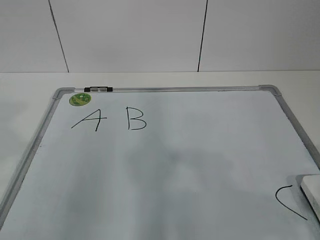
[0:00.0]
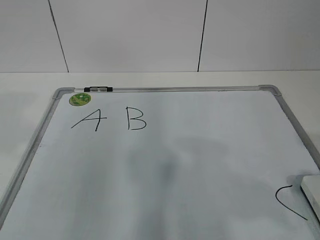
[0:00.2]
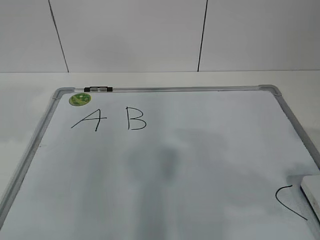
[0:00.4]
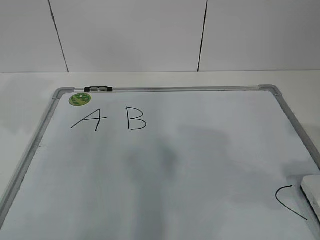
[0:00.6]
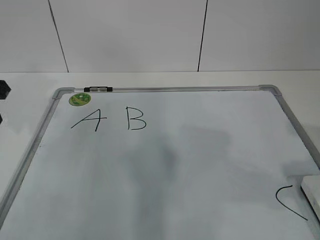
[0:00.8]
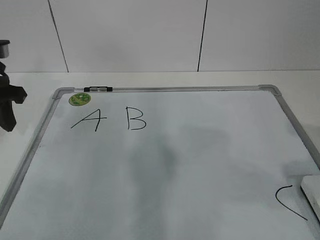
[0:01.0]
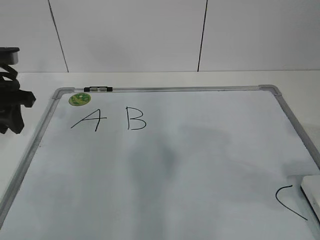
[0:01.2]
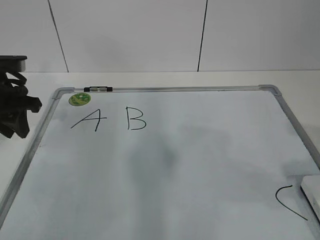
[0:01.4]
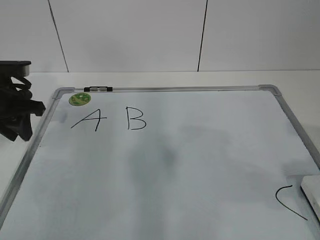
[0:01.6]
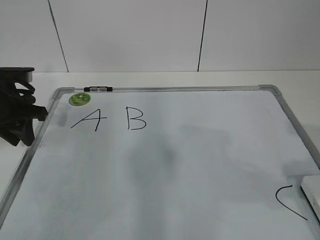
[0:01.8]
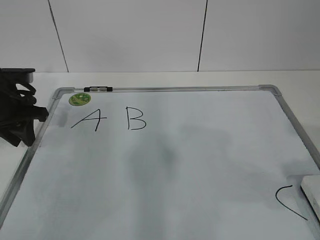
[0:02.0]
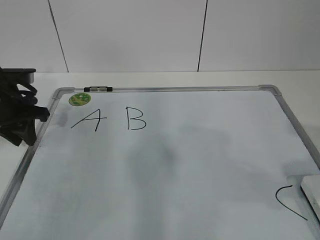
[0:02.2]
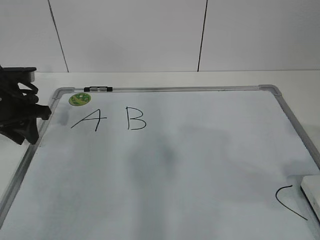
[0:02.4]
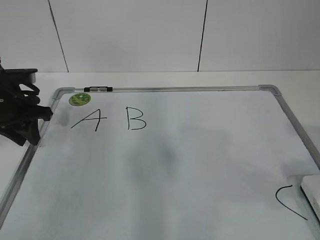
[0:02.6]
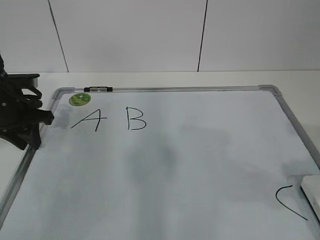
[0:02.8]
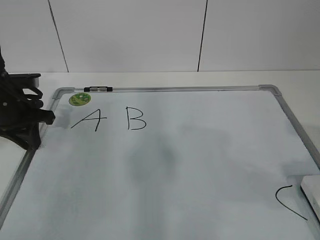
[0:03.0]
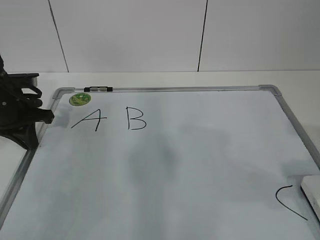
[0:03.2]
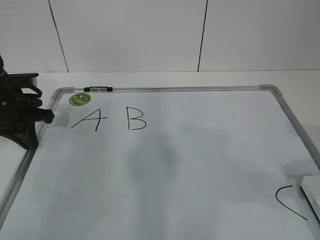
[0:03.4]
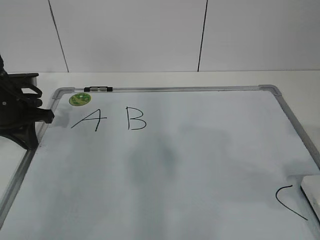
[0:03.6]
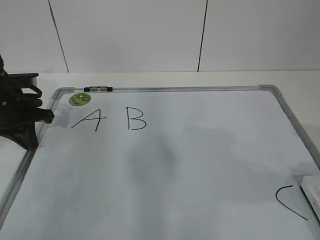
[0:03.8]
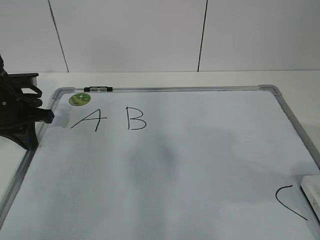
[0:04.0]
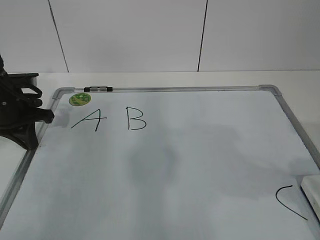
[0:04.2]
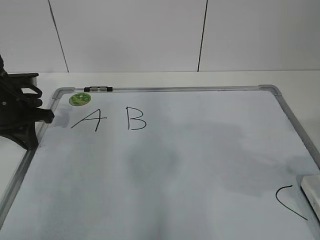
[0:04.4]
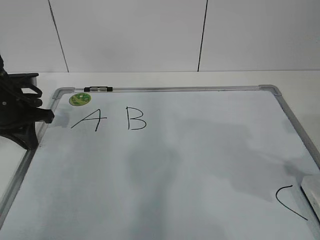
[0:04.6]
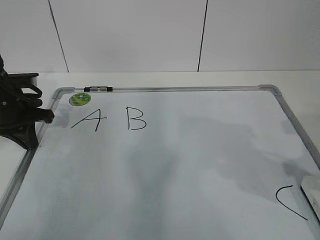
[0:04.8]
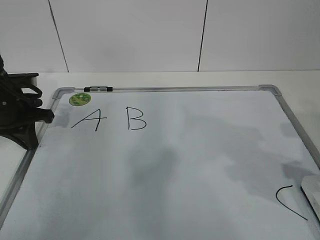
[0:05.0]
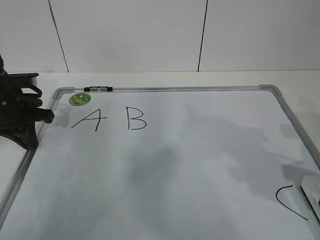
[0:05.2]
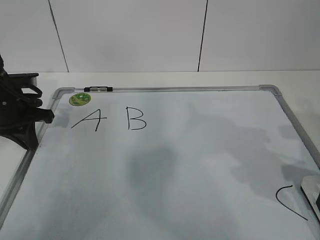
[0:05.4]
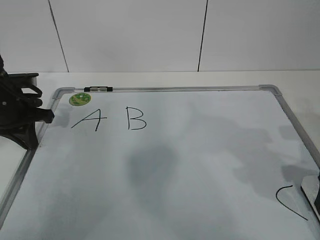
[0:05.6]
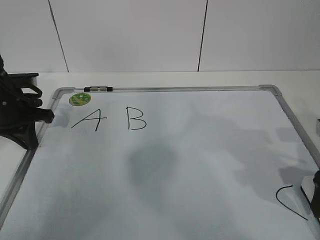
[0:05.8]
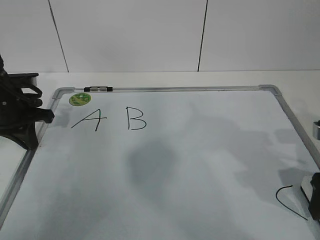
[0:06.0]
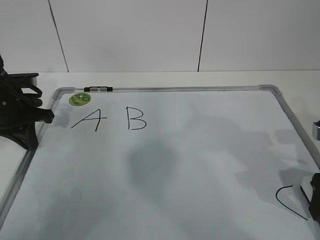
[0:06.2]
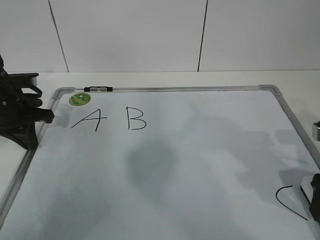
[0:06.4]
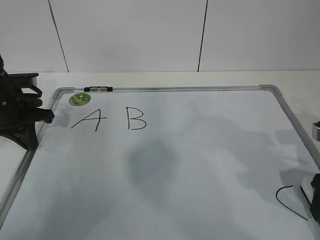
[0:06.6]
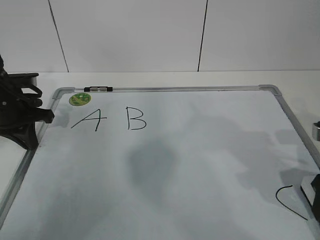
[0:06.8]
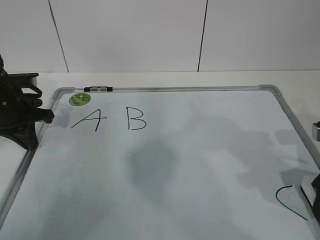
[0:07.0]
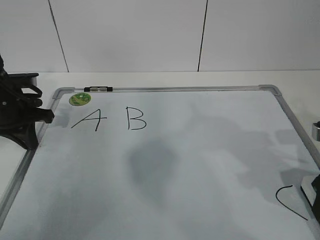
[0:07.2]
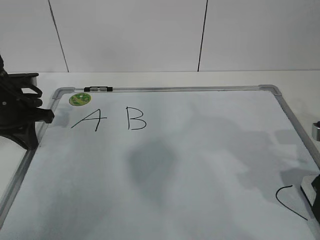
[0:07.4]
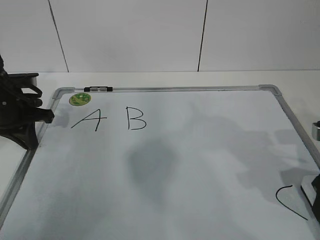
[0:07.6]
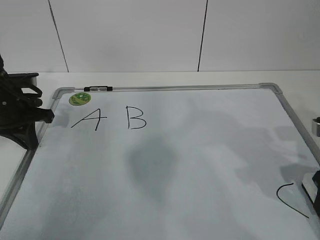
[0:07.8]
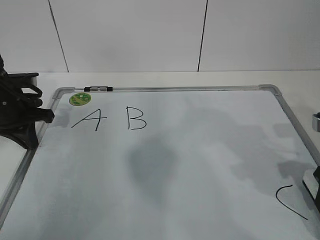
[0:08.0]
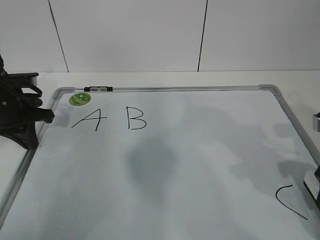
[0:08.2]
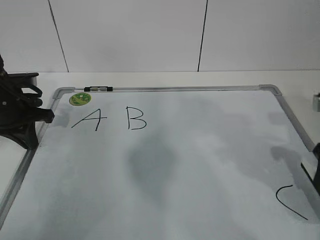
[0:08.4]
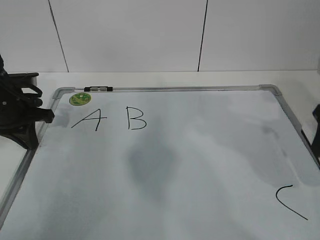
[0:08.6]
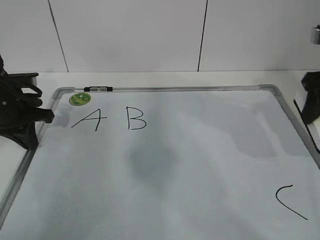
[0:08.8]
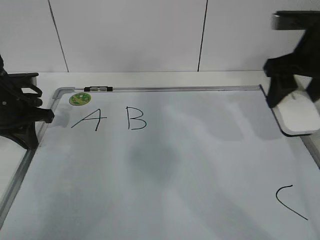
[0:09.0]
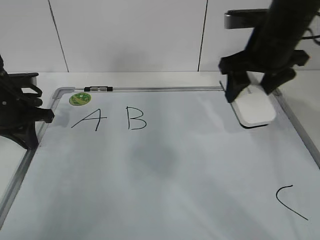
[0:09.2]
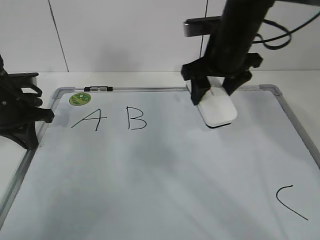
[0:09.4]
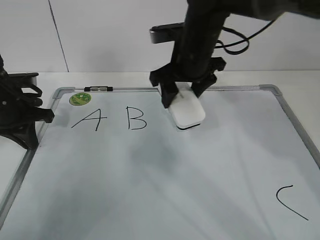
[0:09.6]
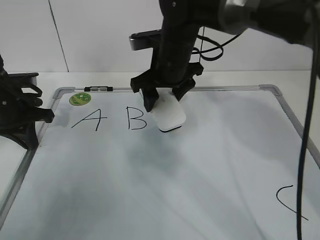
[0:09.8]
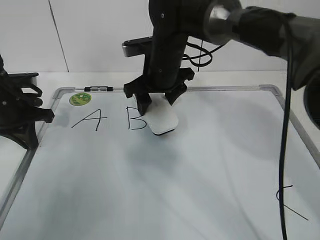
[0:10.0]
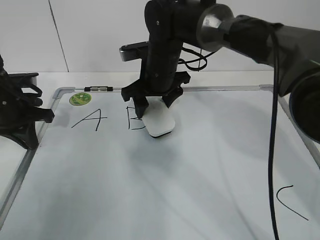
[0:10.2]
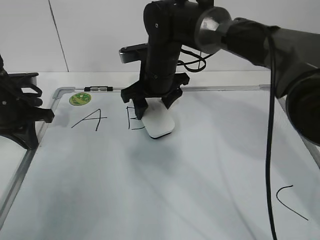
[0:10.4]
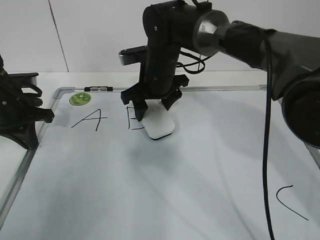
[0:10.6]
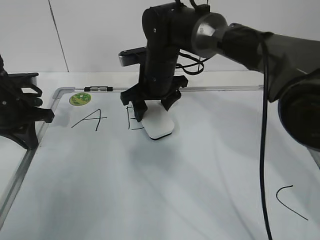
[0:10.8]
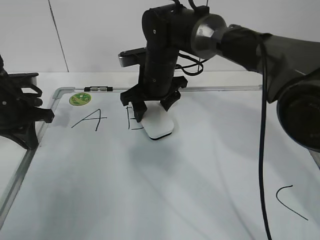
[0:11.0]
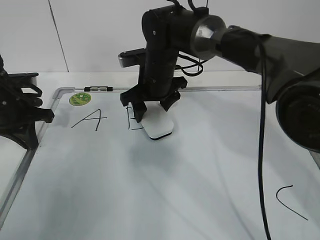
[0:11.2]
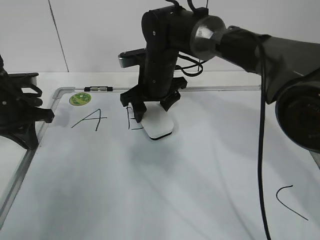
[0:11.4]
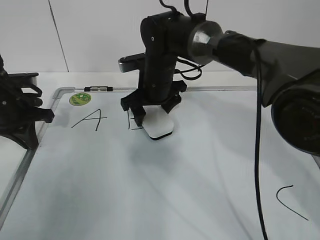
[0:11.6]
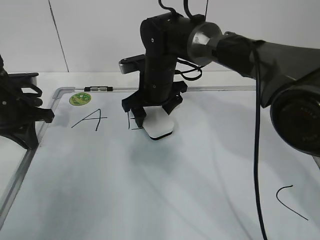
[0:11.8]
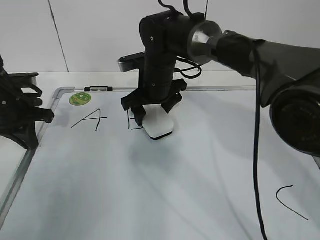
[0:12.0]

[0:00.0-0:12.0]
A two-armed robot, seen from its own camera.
Task of the whole recording: pick up the eraser on the blackboard and erase the letter "B".
Step, 0:00.0 to 0:02.0: Hold the drawing board steady with your left hand.
Step, 0:02.2 to 0:05.2: Grab the eraser with your right hand.
0:00.0 to 0:01.6: The left gripper heads forward and downward, covering some 30 cm.
0:01.6 to 0:03.0: The grippers stay close to where they were, moving slightly.
0:03.0 to 0:04.4: The left gripper closes.
0:04.4 to 0:06.0: The right gripper moves downward and forward, about 10 cm.
0:07.6 to 0:09.0: The right gripper heads upward and forward, covering roughly 15 cm.
0:09.0 to 0:10.4: The right gripper shifts approximately 25 cm to the left, forward and downward.
0:10.4 to 0:12.0: The right gripper opens its fingers.

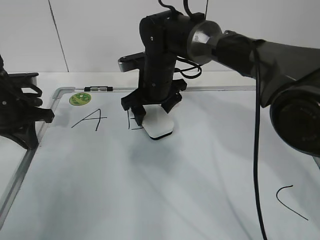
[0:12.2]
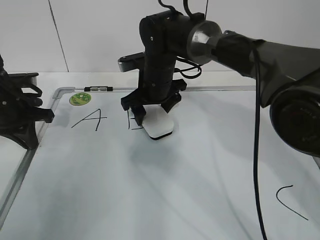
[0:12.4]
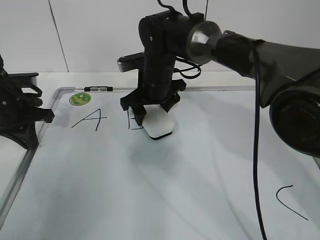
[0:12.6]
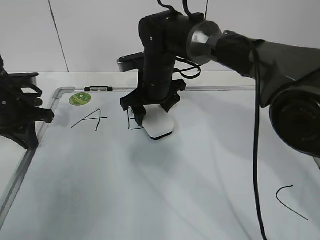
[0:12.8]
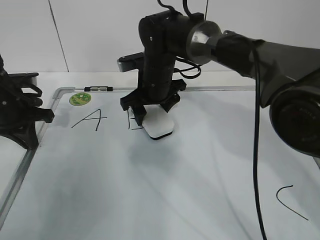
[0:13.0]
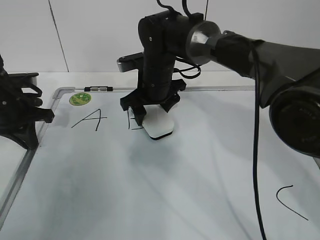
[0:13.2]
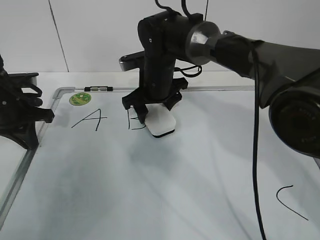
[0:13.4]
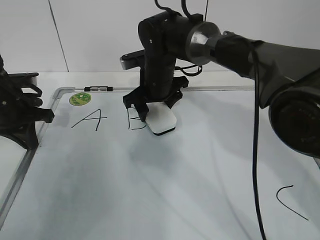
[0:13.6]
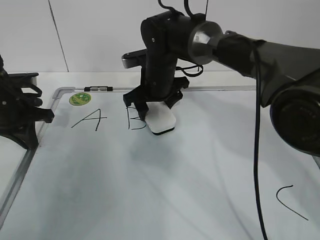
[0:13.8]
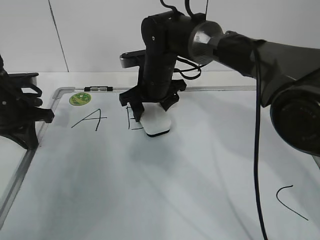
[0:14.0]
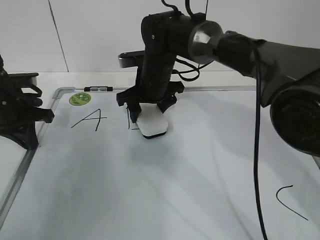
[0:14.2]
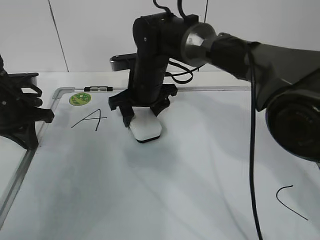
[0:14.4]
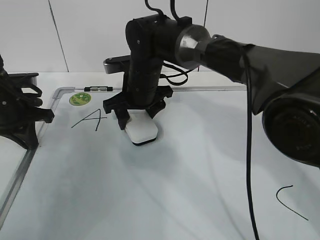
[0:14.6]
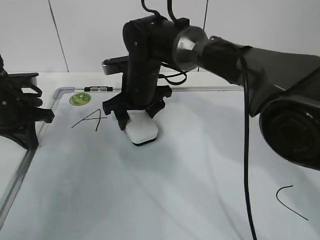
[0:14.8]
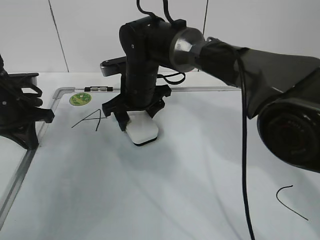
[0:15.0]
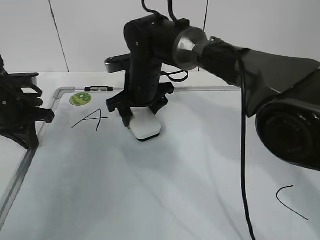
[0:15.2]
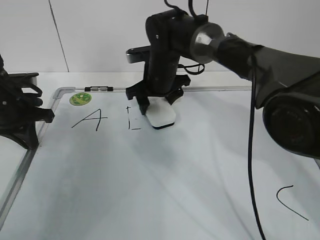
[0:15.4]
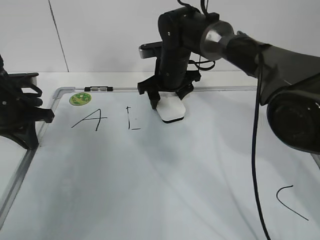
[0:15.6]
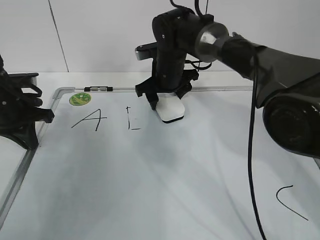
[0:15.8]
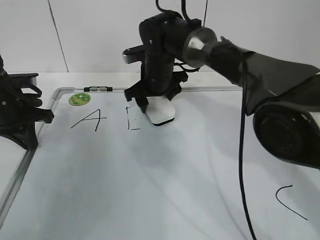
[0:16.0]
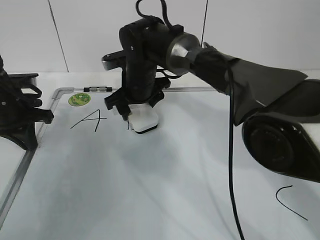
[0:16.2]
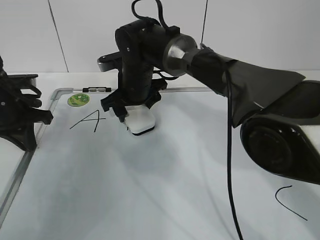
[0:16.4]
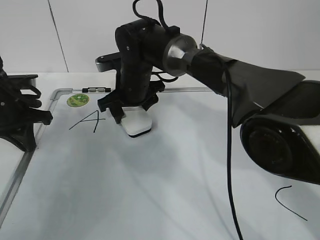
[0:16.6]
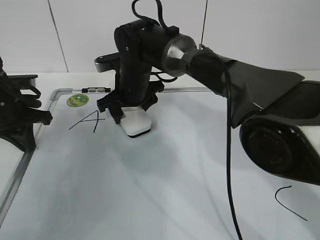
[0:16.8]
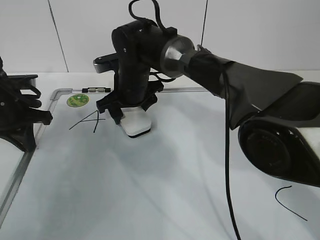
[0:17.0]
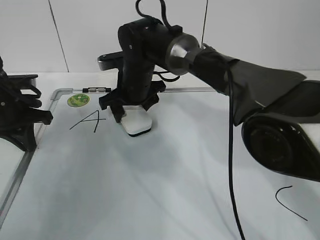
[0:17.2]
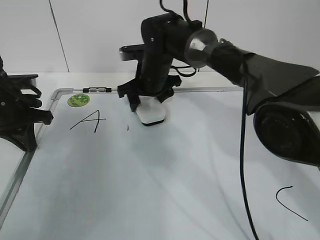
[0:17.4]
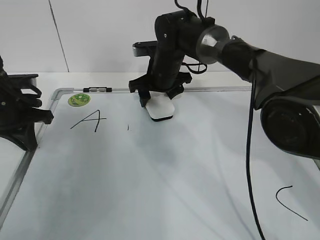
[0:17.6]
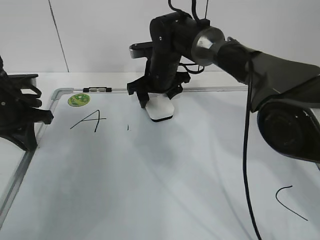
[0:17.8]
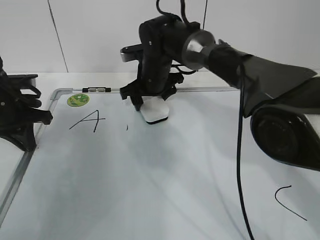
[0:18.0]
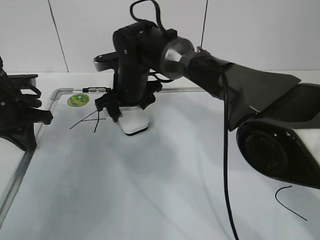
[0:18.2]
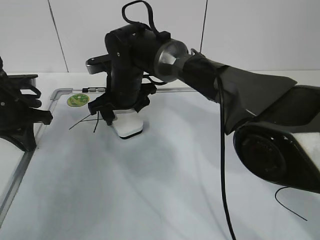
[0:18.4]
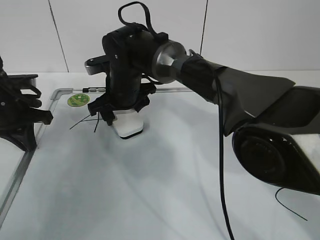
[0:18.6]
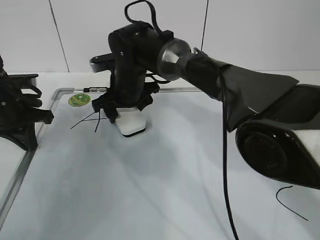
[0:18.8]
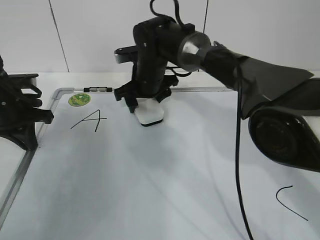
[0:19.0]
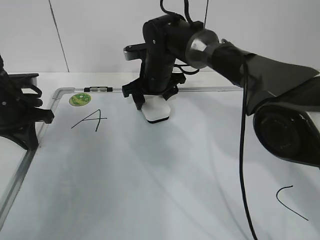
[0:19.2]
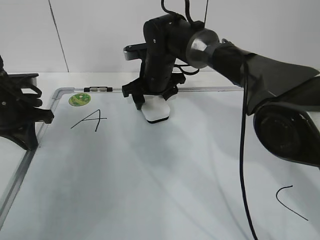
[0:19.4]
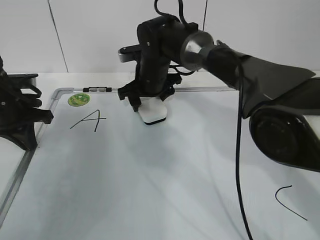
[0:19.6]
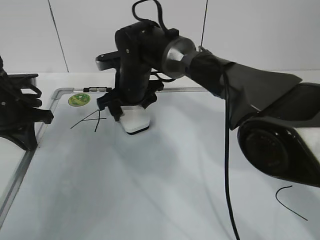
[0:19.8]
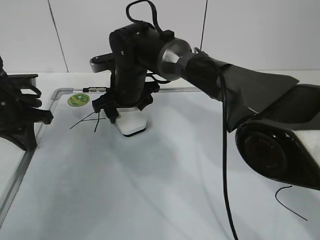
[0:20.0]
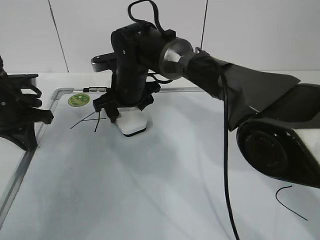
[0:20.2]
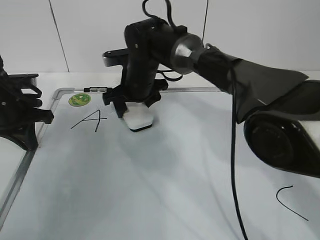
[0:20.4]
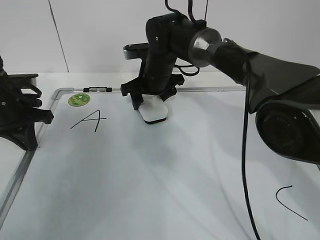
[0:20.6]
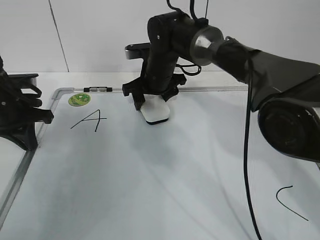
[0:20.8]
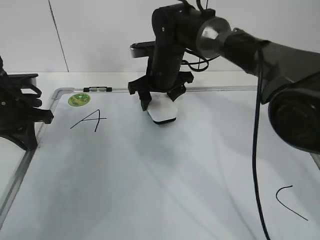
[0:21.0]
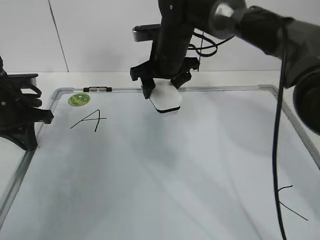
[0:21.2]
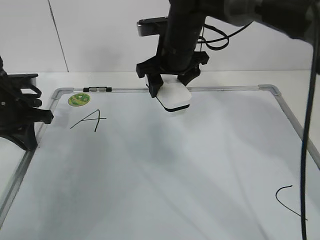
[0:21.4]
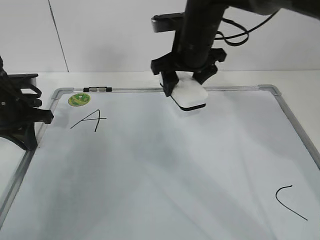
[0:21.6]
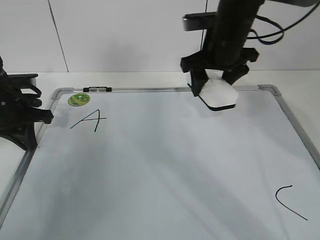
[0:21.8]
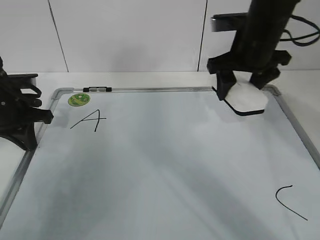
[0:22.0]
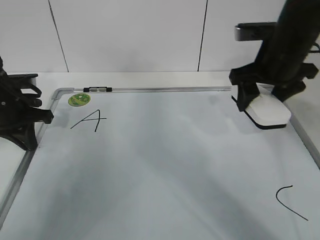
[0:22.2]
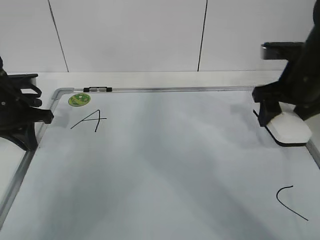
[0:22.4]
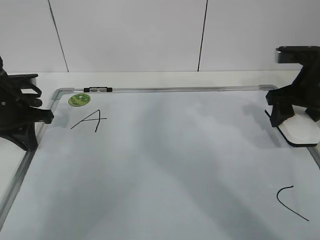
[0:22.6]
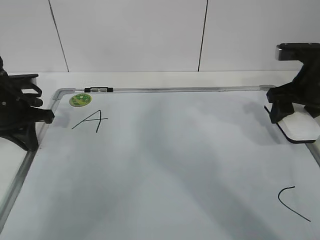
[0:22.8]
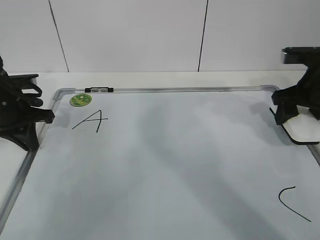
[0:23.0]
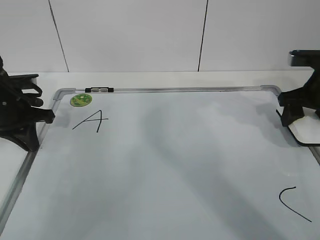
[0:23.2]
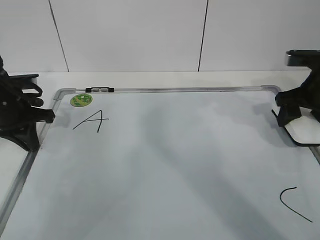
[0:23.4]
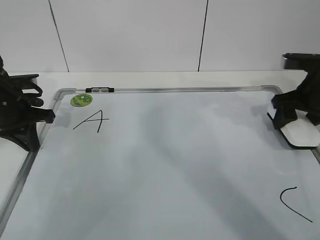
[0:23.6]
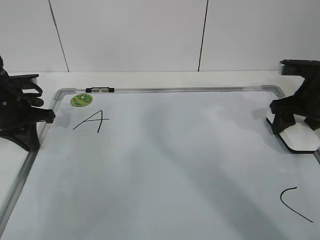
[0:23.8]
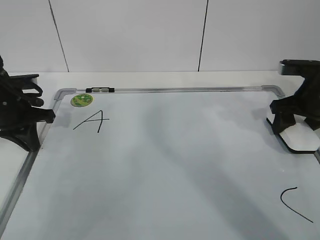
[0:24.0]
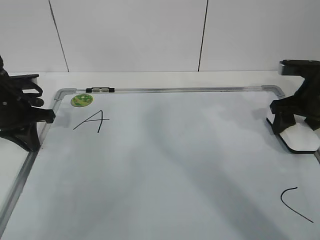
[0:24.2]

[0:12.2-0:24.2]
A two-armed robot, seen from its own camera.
Task of the whole recording: pick up the eraser on the blackboard and erase the letter "B".
Step, 0:12.2 to 0:16.8: Erase the letter B with your right hand.
Step, 0:17.0 to 0:20.2: Put down the eraser with your right hand.
0:12.2 to 0:13.8: The right gripper closes its fingers.
0:13.8 to 0:15.2: The grippers make only small movements.
0:15.2 to 0:16.6: The right gripper travels to the right and back again, some 5 cm each way.
0:19.8 to 0:21.2: The right gripper shifts about 10 cm to the right and upward.
0:21.2 to 0:22.6: The right gripper shifts about 25 cm to the right and backward.
0:22.6 to 0:24.2: The right gripper ends up about 5 cm from where it was.
